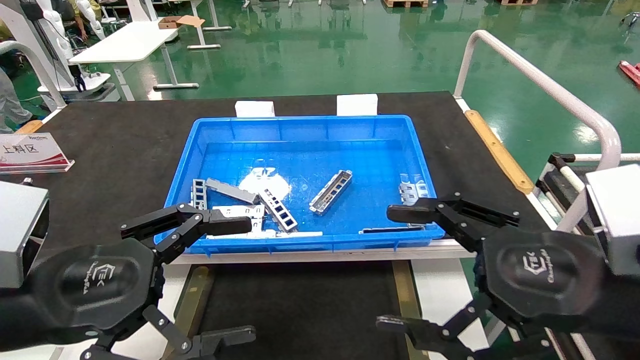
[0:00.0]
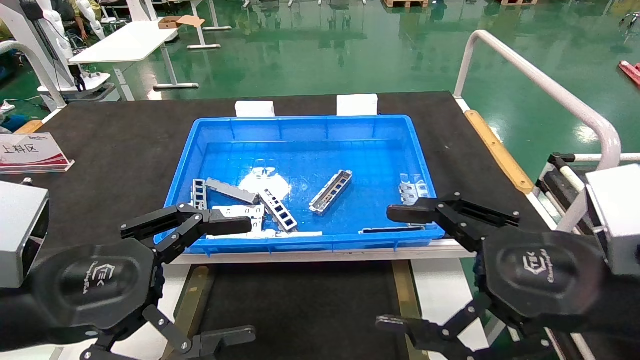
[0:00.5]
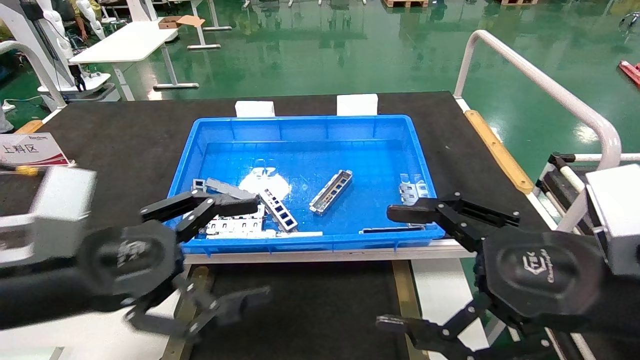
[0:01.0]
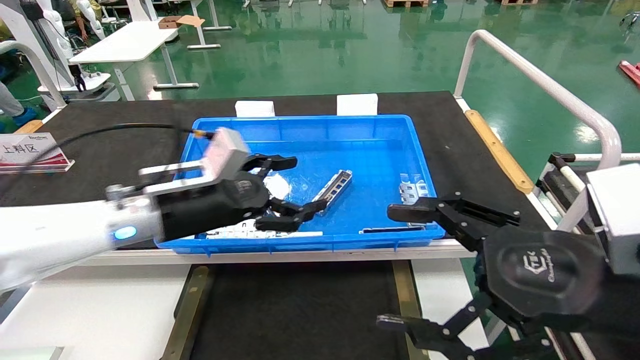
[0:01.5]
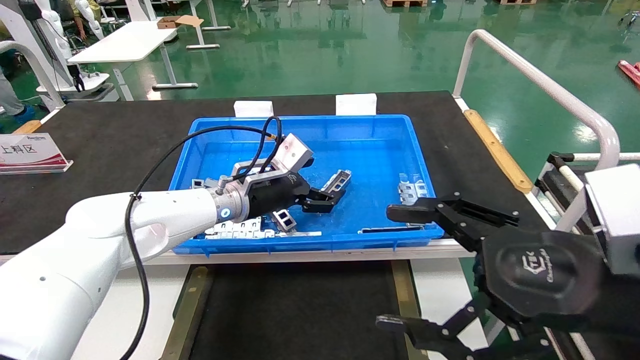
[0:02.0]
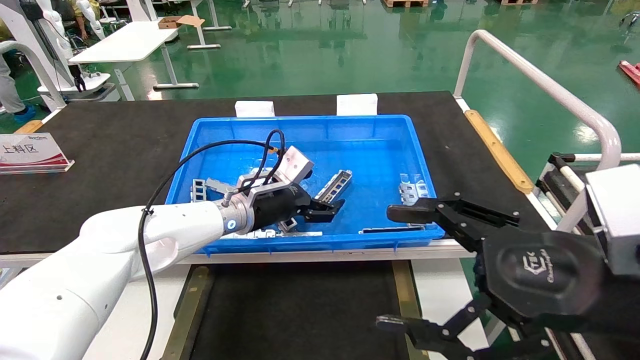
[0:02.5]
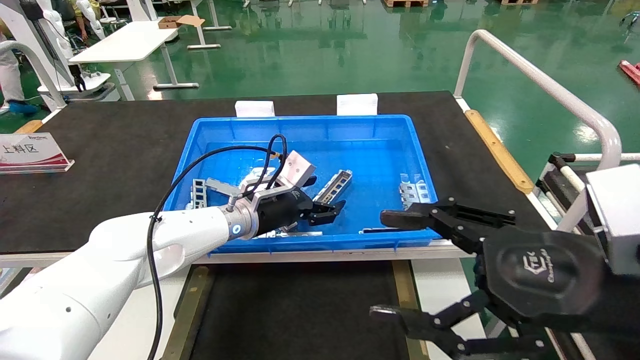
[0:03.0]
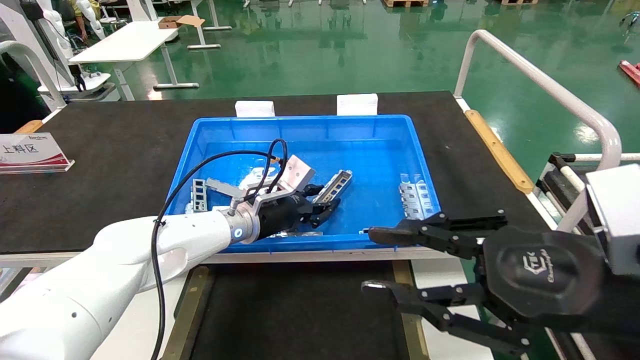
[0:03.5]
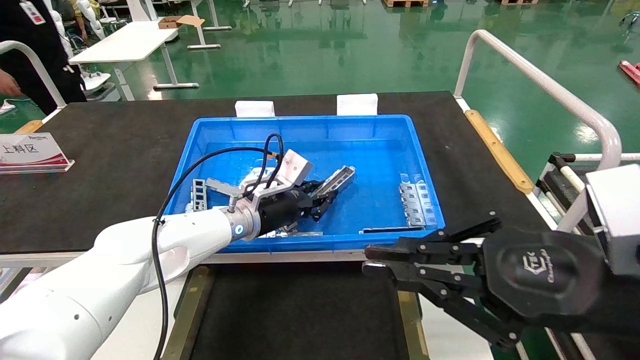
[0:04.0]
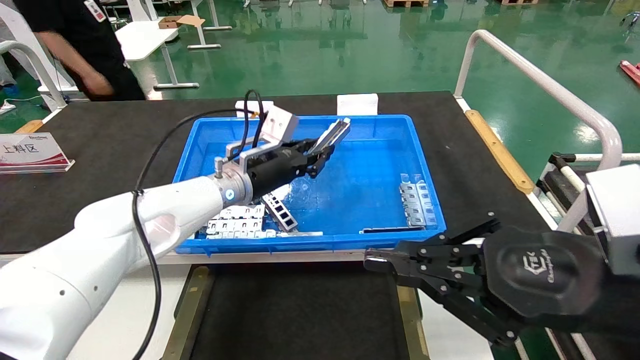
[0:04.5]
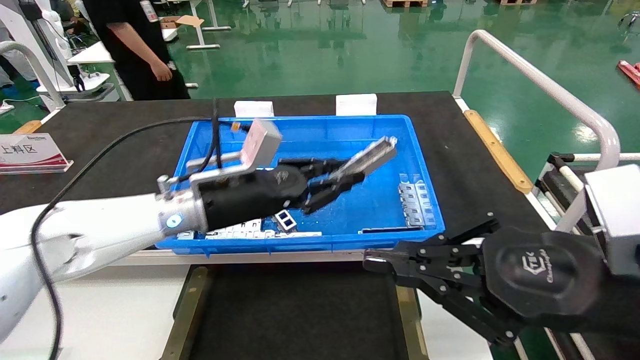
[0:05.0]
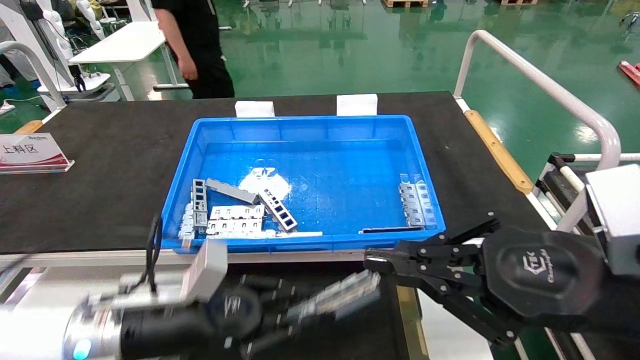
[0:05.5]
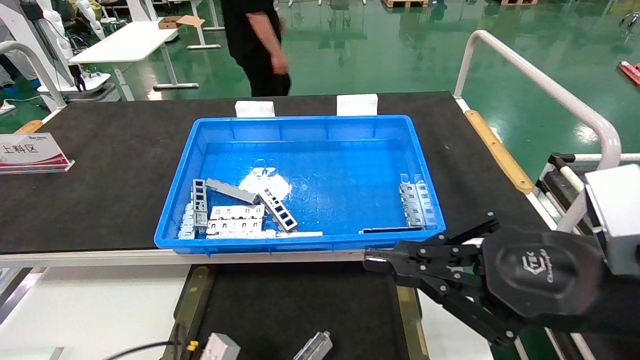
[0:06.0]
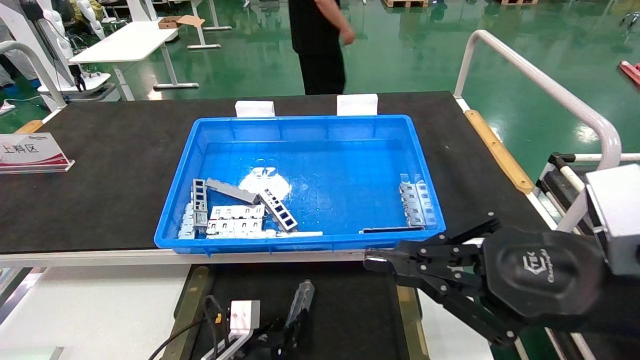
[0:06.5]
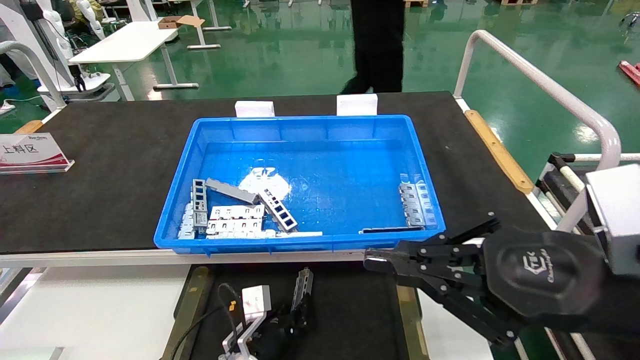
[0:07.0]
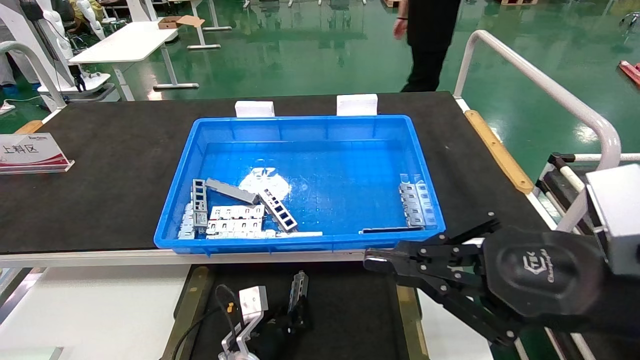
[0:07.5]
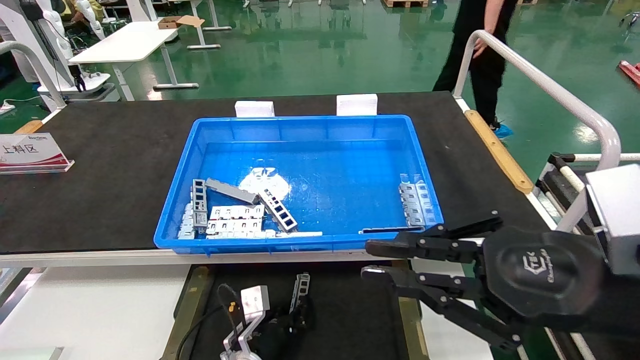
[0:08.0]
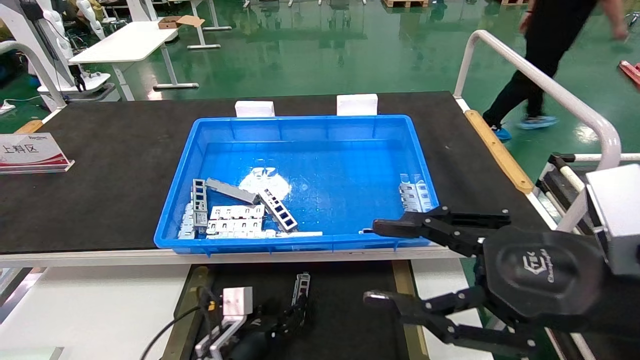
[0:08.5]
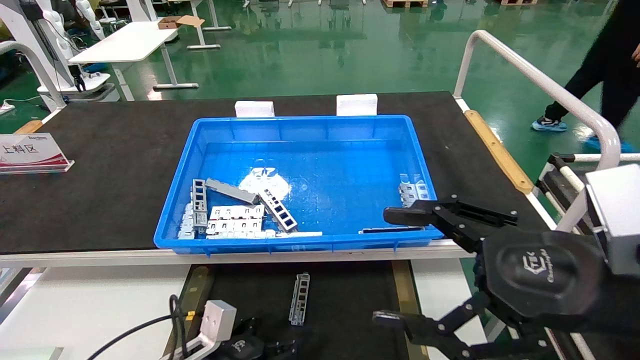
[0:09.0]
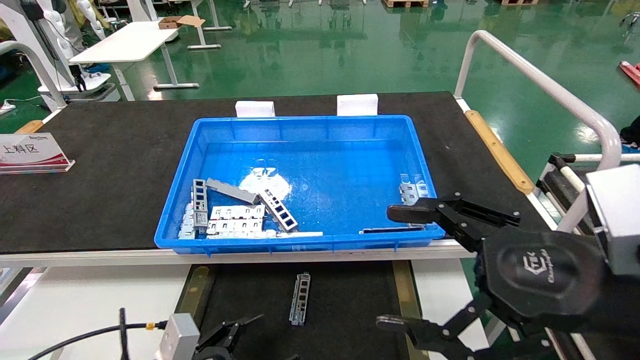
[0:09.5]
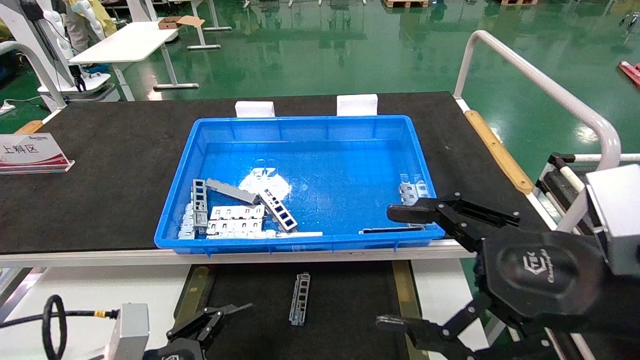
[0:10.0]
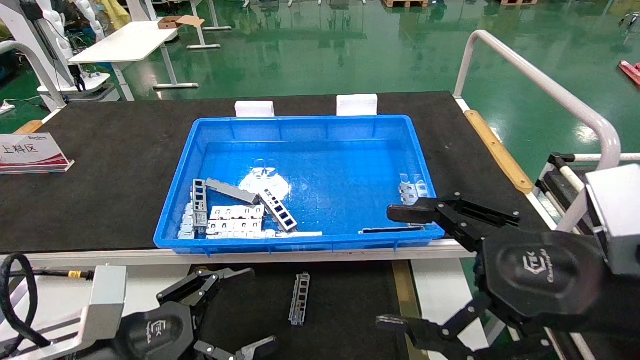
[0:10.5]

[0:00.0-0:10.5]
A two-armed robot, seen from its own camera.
Task of the whole recording: Grasp the part with one hand and place it on the black container.
Step, 0:01.5 to 0:03.5: Pick up the front USB bracket from the feeding area.
Step, 0:04.0 to 0:08.0: Place the front USB bracket into the box.
0:00.0 to 0:02.0: The left gripper moves forward and to the right, roughly 30 cm.
0:02.0 to 0:04.0: The left gripper closes, while the right gripper closes up.
0:04.0 to 0:06.5: The left gripper shifts roughly 25 cm downward and backward.
0:06.5 to 0:08.5: The left gripper opens up. The right gripper opens up.
0:08.5 to 0:10.5: The right gripper opens up. Meanwhile the left gripper moves upward, backward and to the left, about 25 cm, and opens up.
